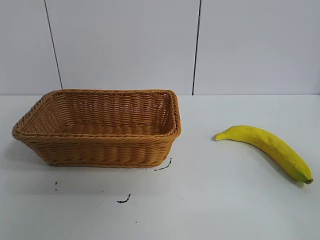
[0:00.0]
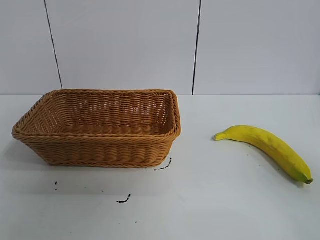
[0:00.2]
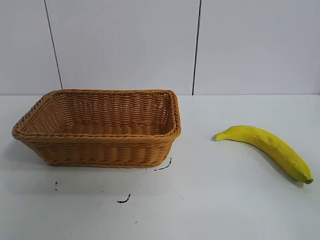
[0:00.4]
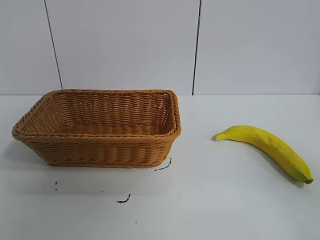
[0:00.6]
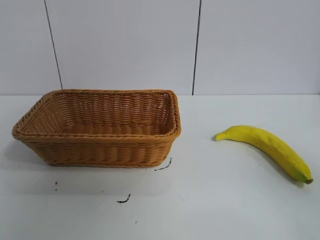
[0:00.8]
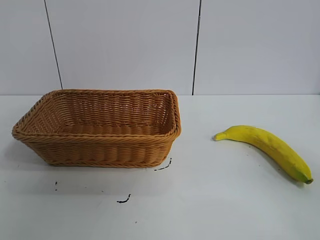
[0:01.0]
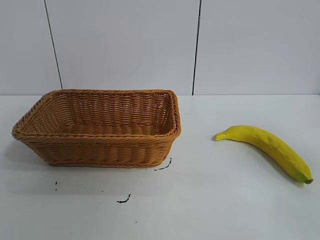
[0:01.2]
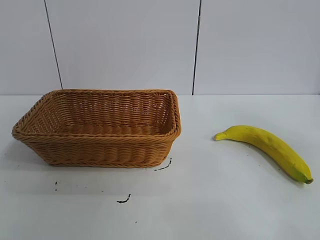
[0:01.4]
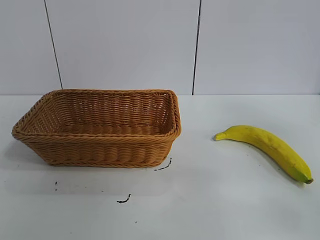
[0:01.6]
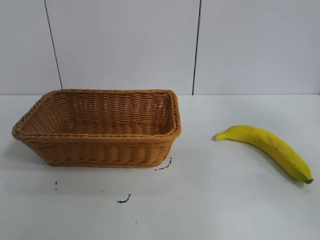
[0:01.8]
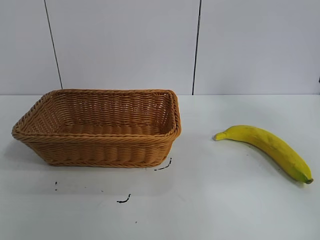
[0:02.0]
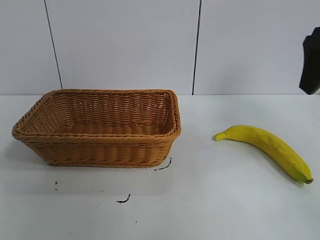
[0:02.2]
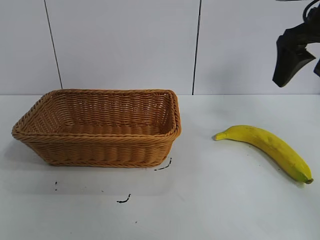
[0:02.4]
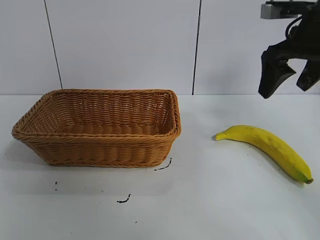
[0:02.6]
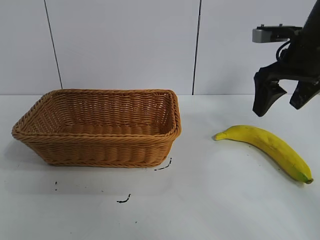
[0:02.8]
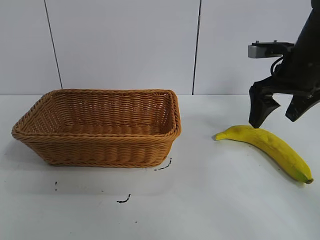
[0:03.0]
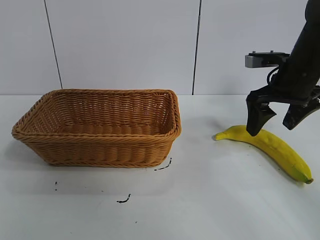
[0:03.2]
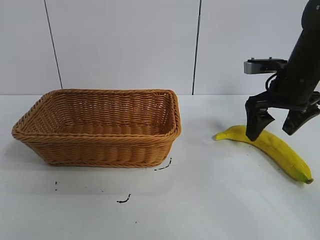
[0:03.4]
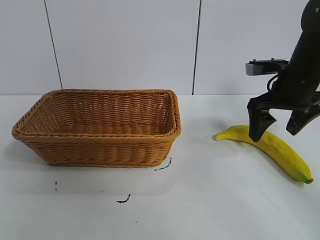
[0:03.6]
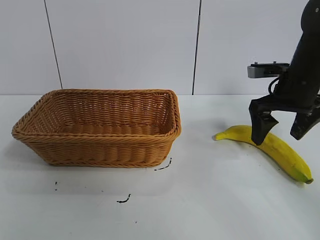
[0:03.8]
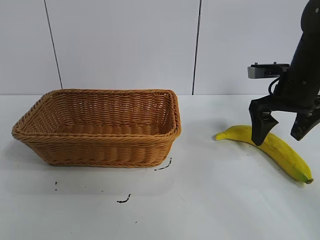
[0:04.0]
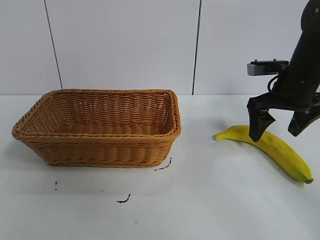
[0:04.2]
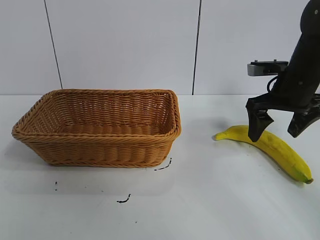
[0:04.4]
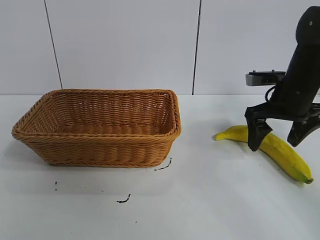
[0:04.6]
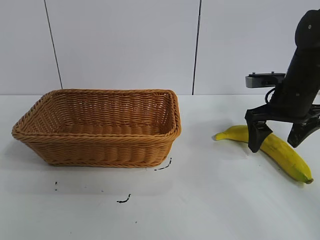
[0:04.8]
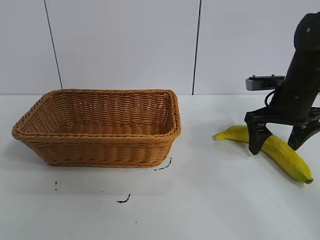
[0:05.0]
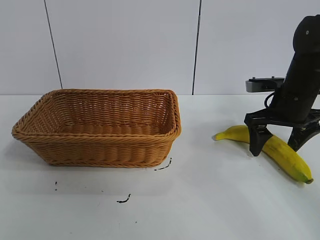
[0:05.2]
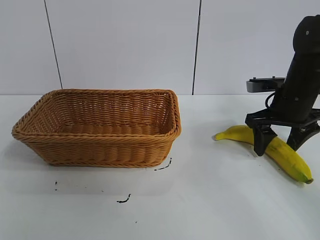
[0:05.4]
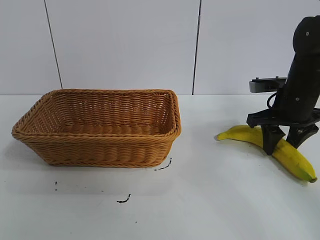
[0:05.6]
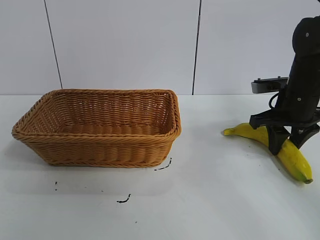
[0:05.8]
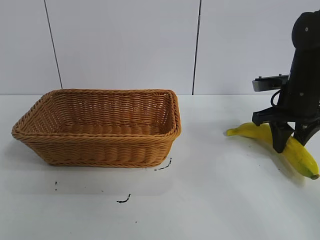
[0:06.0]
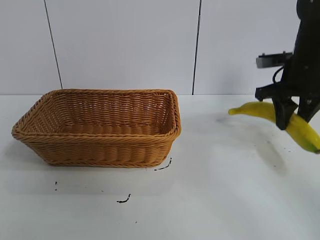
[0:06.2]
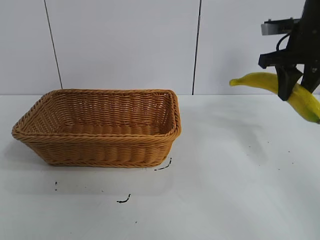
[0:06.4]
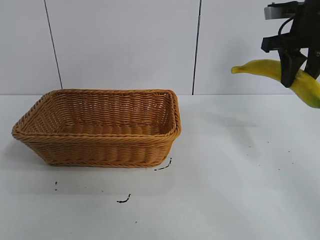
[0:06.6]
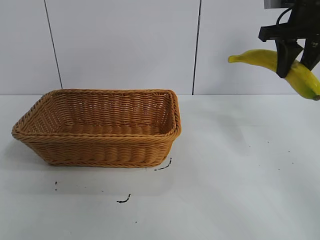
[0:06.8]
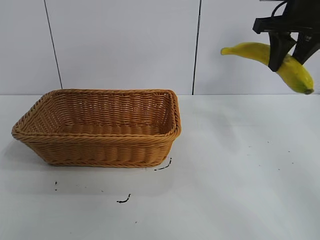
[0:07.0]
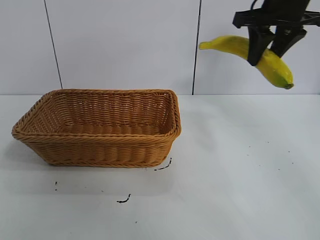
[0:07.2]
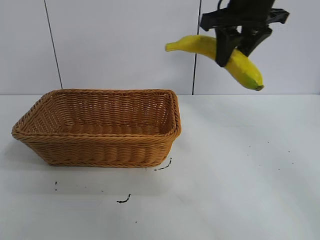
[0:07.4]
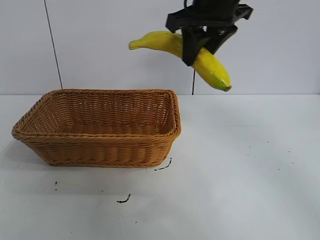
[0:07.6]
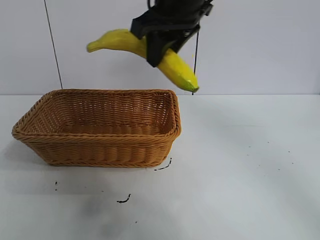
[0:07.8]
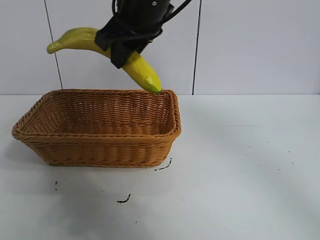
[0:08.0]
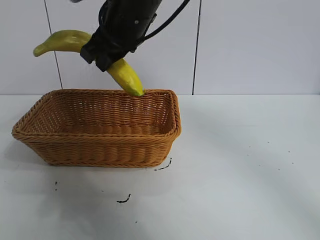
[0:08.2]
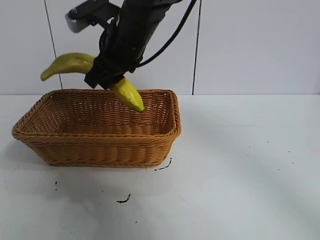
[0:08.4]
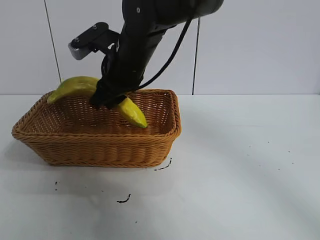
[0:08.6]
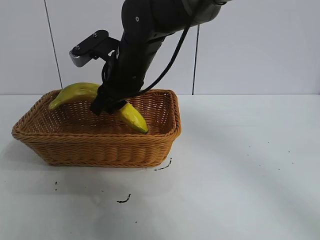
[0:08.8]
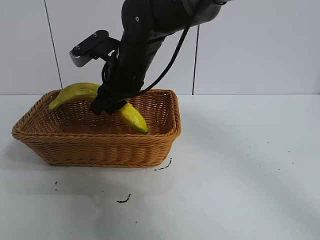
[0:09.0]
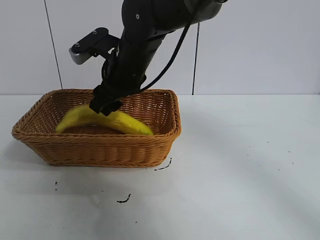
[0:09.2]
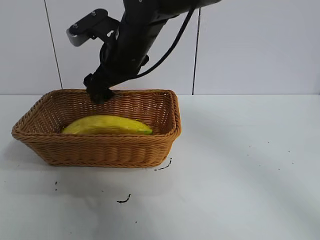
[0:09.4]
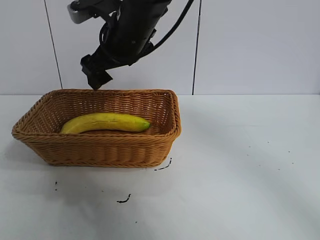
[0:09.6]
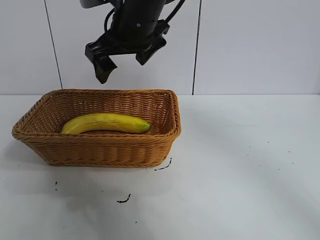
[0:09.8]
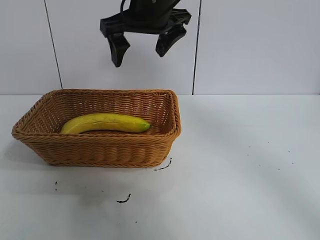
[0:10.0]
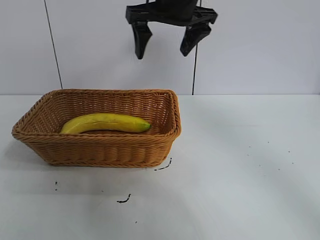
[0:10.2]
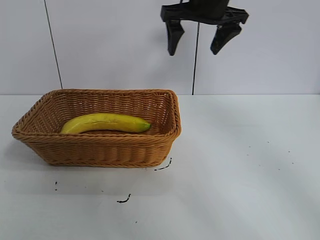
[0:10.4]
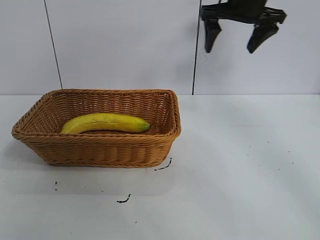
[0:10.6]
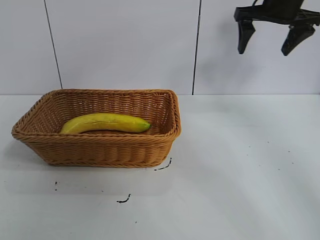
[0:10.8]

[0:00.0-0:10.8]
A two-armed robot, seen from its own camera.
Task of the whole recording: pick up the banana and put it into the basket.
Step, 0:01.0 to 0:05.6: Grasp the banana with right gripper.
Step, 0:05.8 to 0:09.4: Place the banana in the basket with right gripper.
